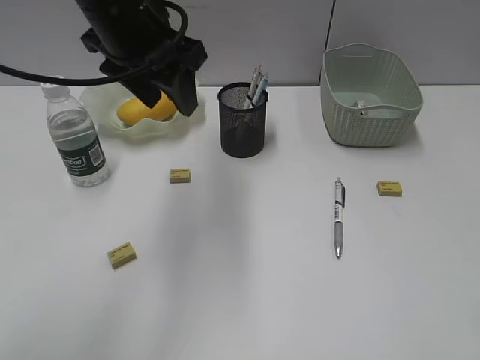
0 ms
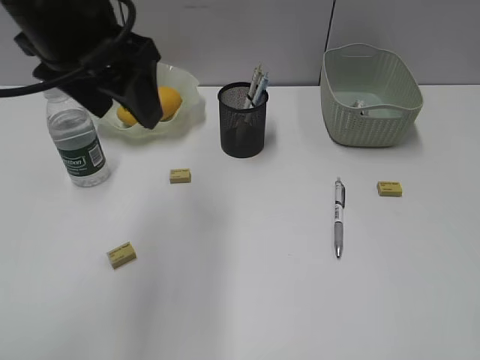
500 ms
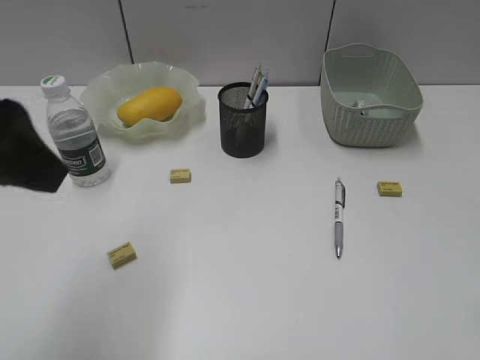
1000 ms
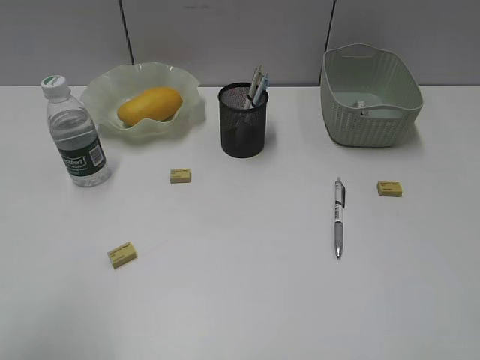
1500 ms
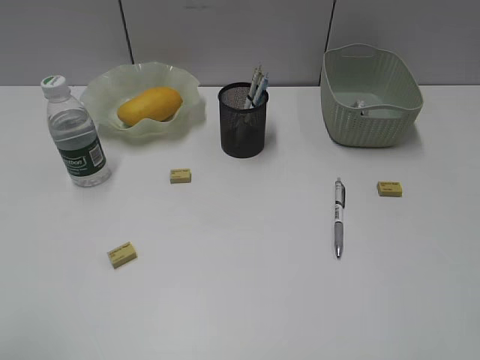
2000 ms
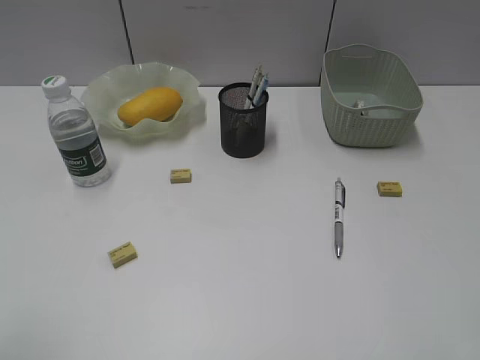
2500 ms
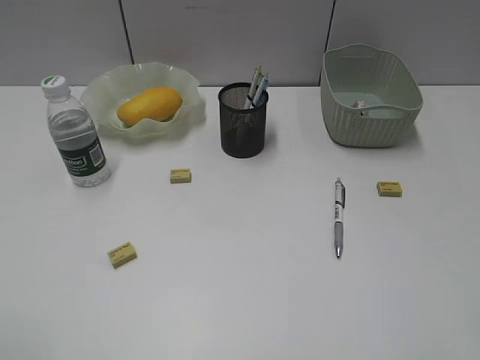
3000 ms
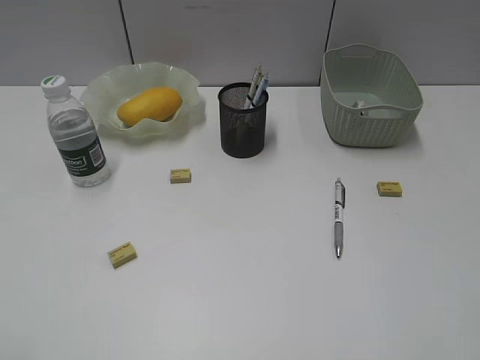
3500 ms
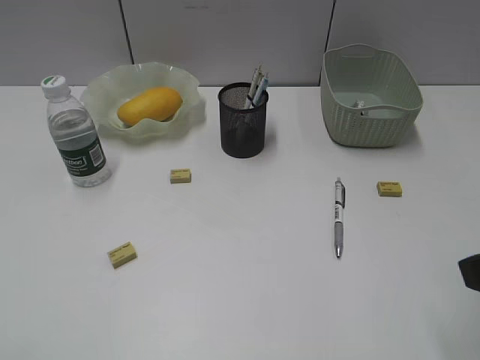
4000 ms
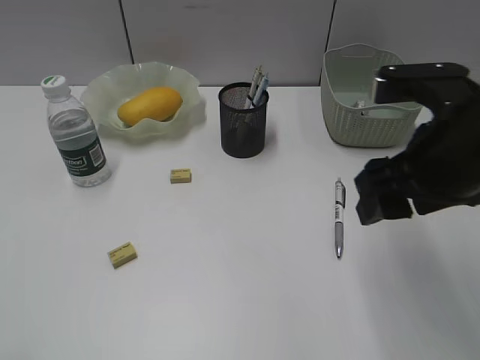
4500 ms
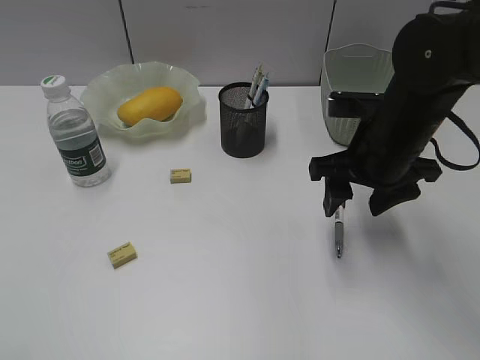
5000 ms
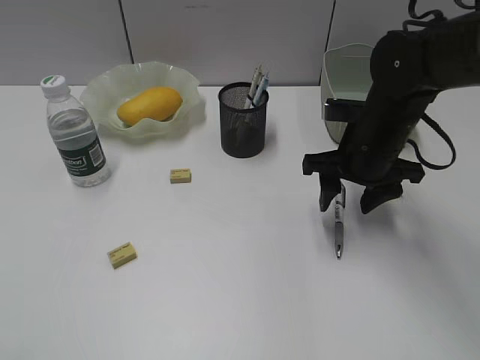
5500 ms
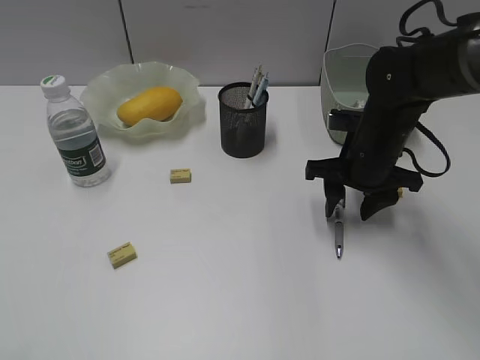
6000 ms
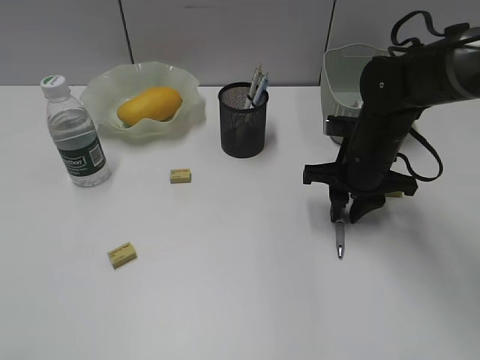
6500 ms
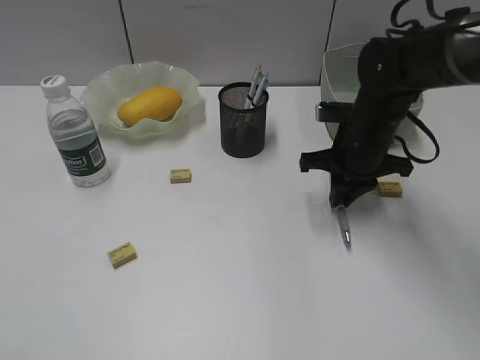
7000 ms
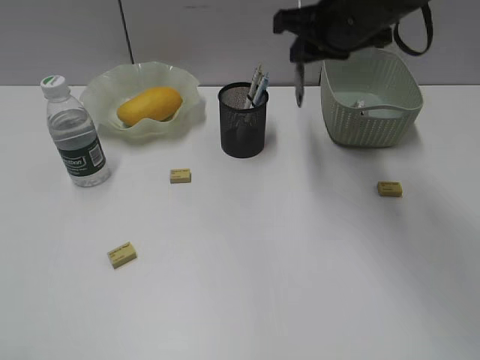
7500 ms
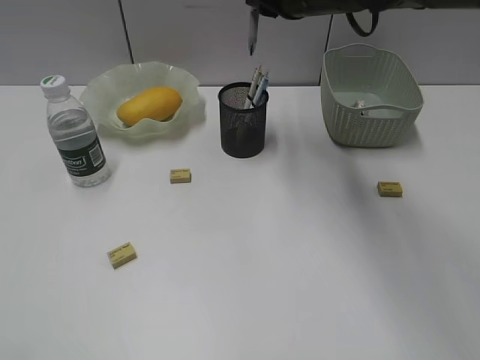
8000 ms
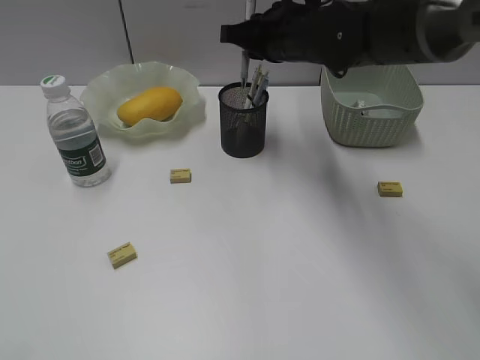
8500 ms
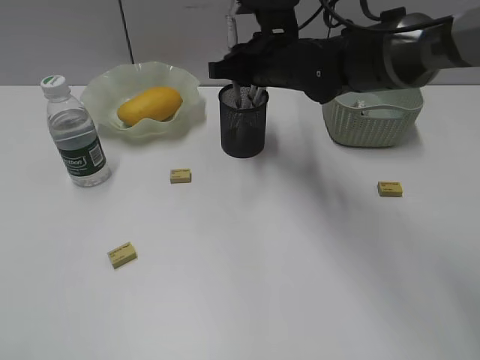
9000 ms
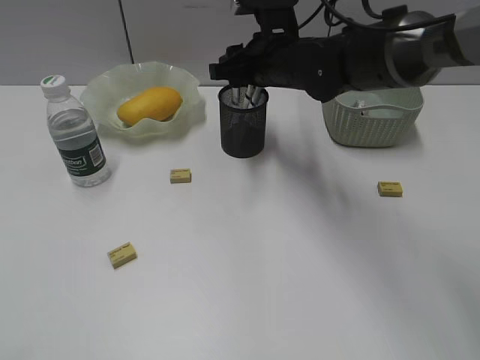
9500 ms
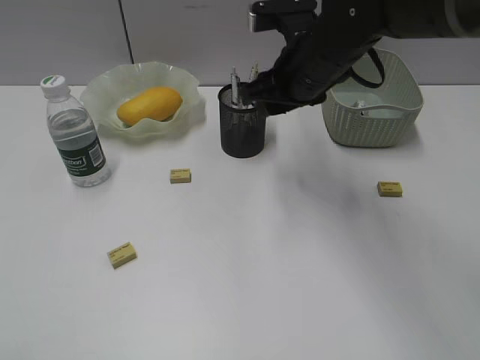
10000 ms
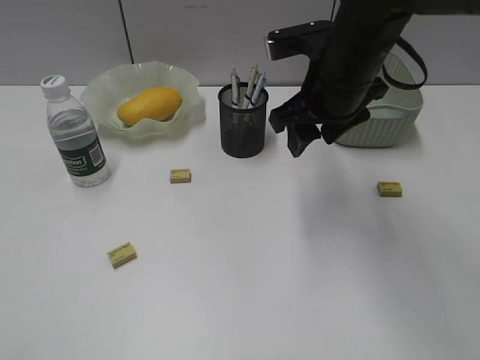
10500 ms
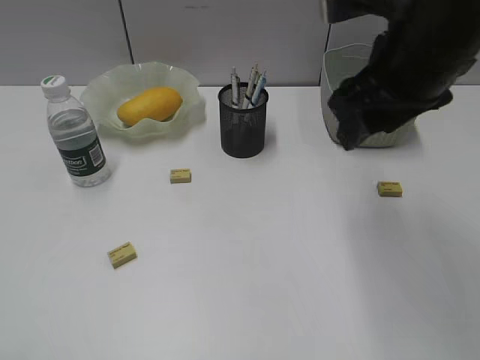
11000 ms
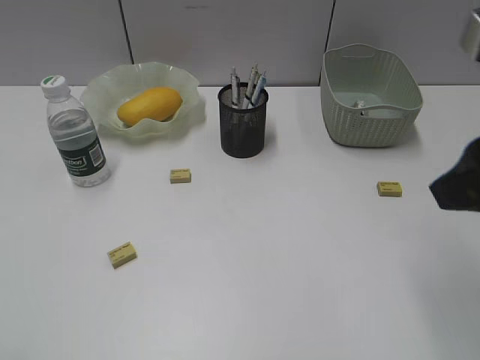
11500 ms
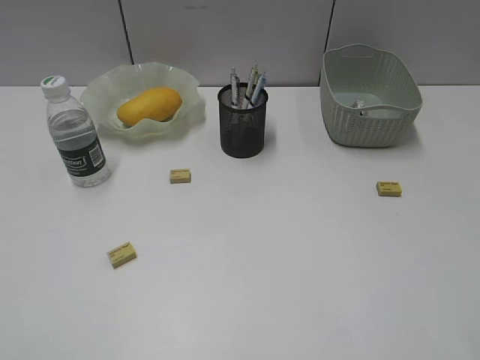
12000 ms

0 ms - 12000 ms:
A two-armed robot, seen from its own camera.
Step, 0 ms - 6500 ms: Grasp the gray pen with right gripper.
Step, 7000 ms - 9000 ms: Place the gray pen in pen holder with right gripper.
0 ms - 2000 ms: The left gripper moves backward and to the left, about 35 cm.
4000 ms - 6000 ms: The right gripper goes roughly 30 cm forward and downward.
6000 ms - 8000 ms: The right gripper heads upward and to the left, covering some 20 cm, and closes up.
8000 ms - 10000 ms: The right gripper travels downward by roughly 5 cm, and opens up.
10000 ms - 12000 ms: The right gripper moves backward and to the right, about 35 cm.

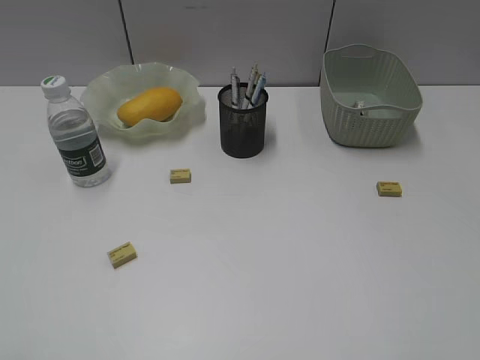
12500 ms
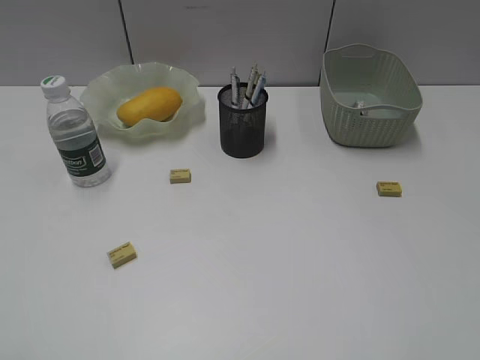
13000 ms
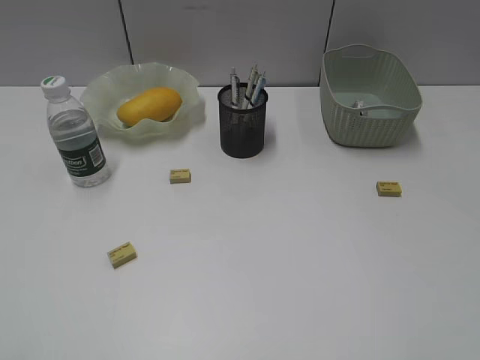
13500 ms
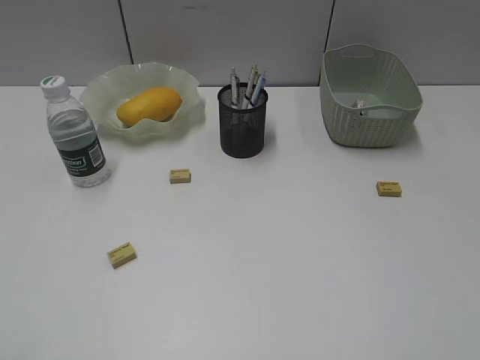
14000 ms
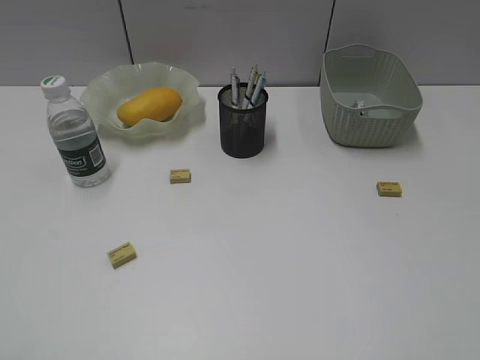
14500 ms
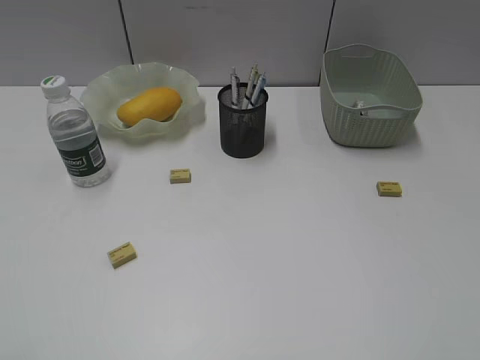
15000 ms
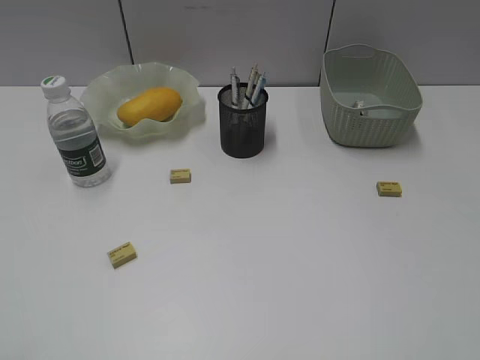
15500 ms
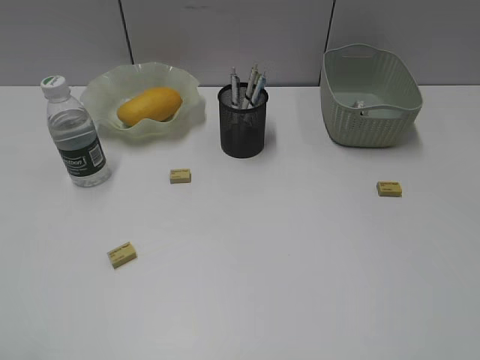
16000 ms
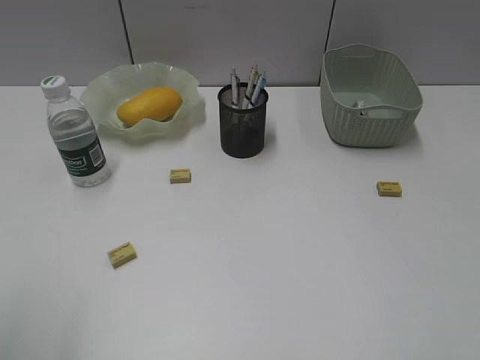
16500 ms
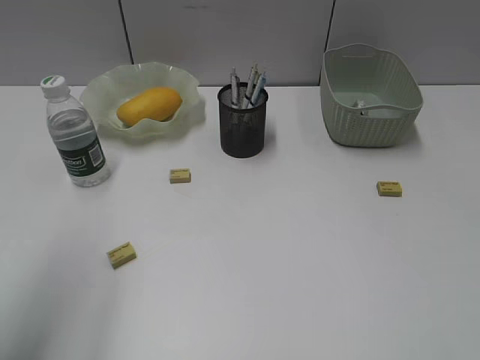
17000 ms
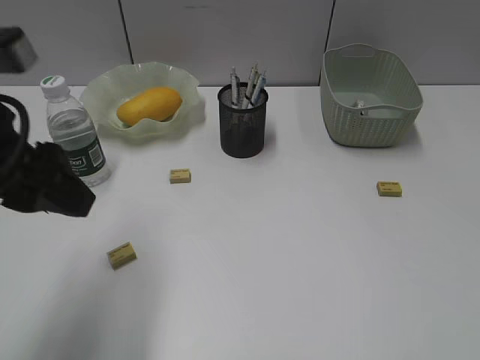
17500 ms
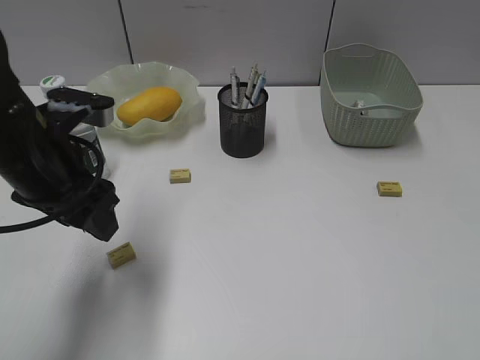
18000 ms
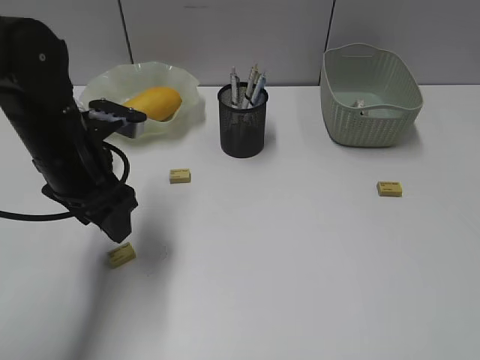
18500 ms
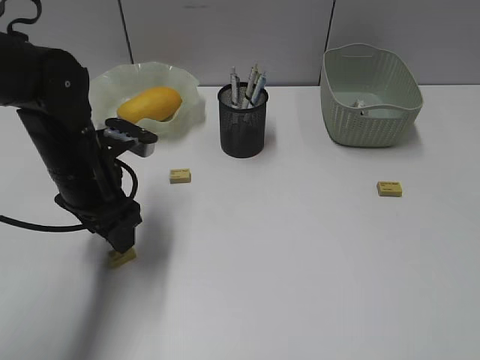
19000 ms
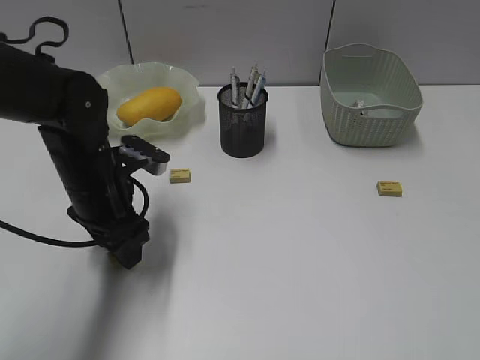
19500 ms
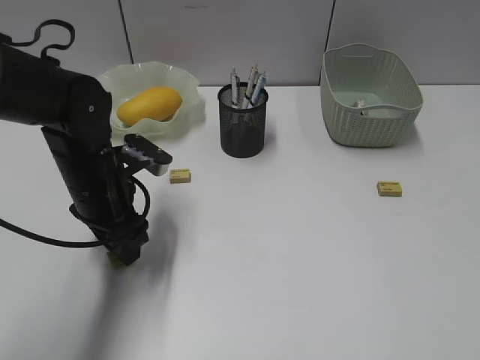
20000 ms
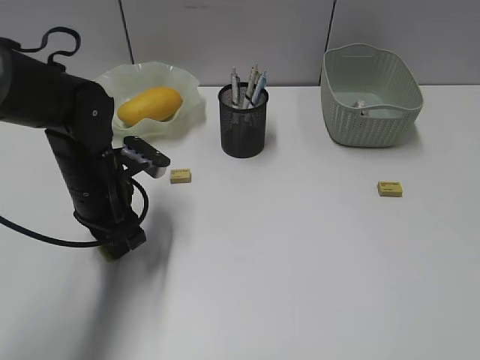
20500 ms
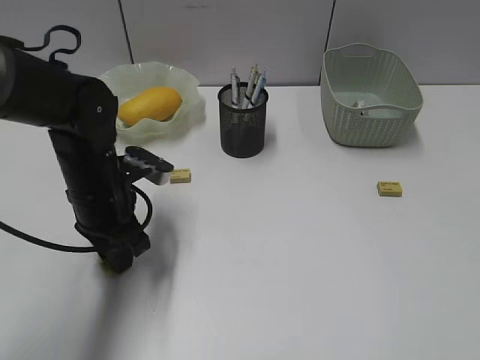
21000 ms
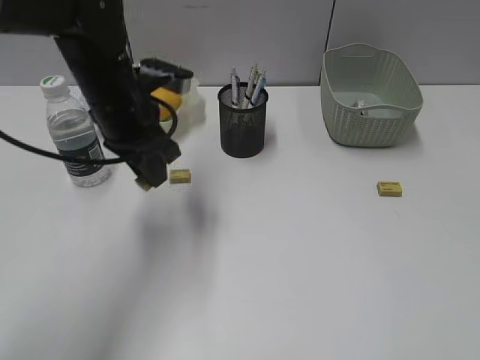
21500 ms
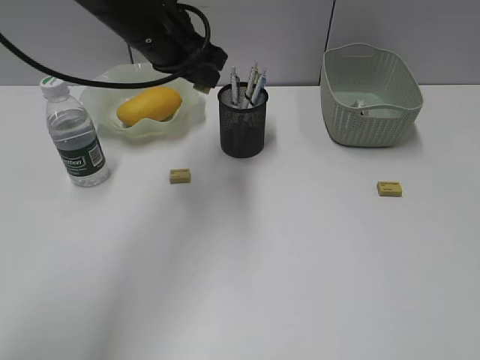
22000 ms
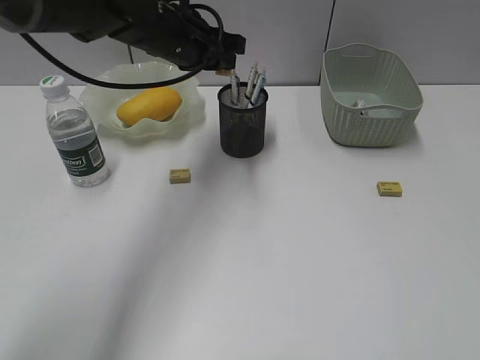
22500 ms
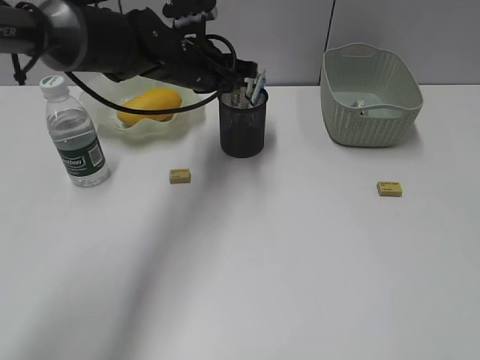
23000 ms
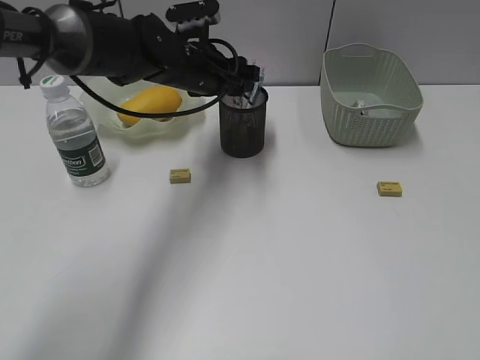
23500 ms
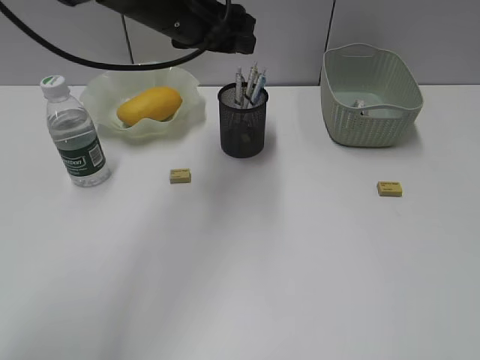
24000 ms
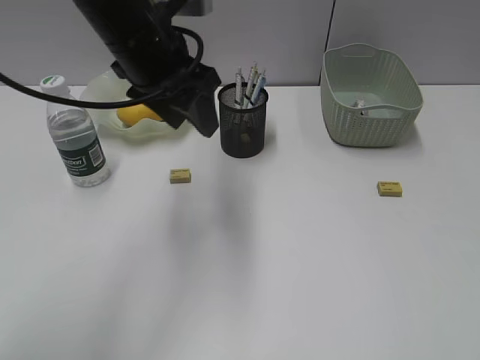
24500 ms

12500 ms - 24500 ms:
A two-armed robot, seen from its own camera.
Step, 12500 ms - 20500 ms: Grasp the eraser with left gripper.
Step, 21000 ms - 23500 ms: Place the eraser in pen holder with left gripper.
16500 ms - 18500 ms: The left gripper shifts some 30 cm forward, downward and to the right.
18500 ms - 20500 ms: The left gripper shifts roughly 5 cm downward, and closes up.
20500 ms - 22500 ms: The left gripper heads upward, forward and to the right, covering about 20 cm.
22500 ms - 24500 ms: The left gripper moves backward, about 10 cm, and opens up.

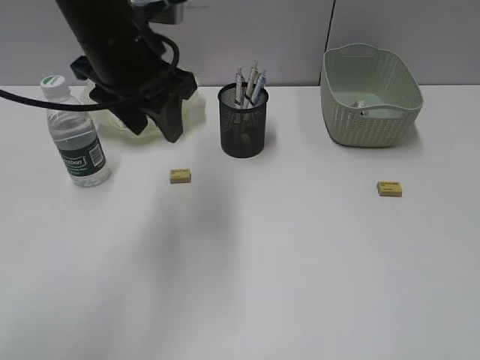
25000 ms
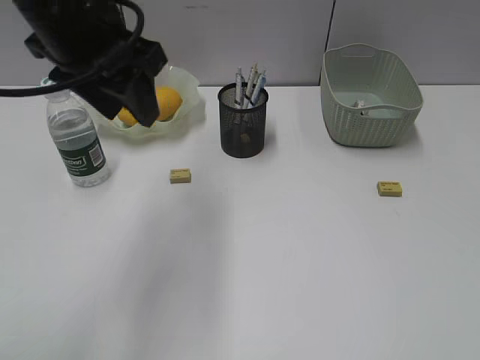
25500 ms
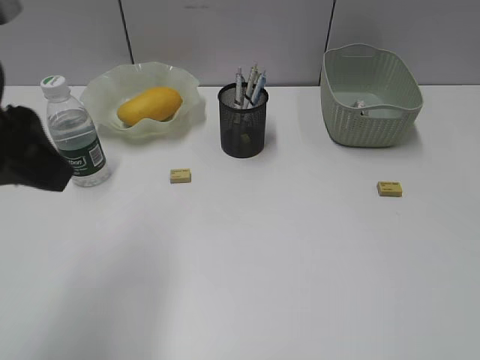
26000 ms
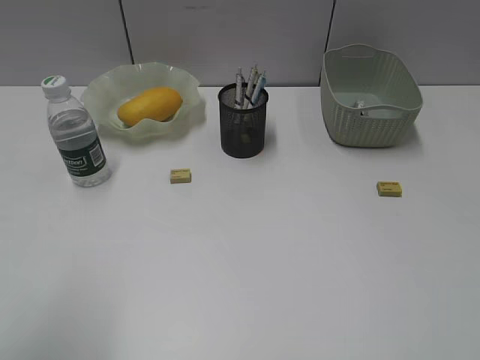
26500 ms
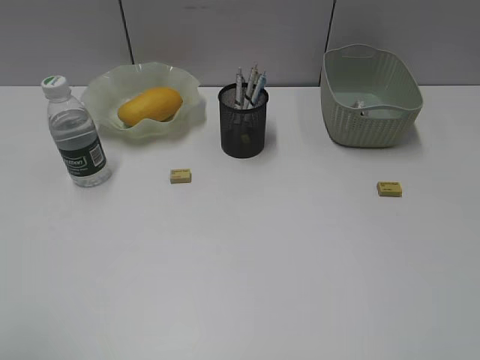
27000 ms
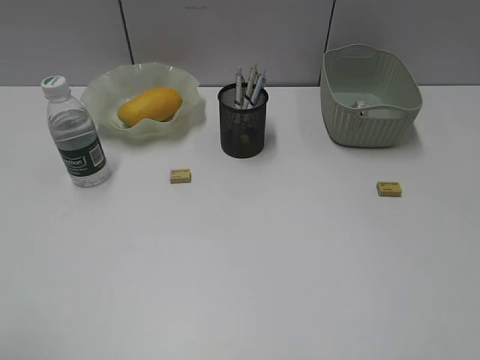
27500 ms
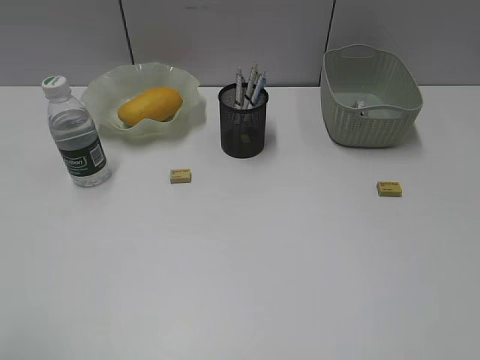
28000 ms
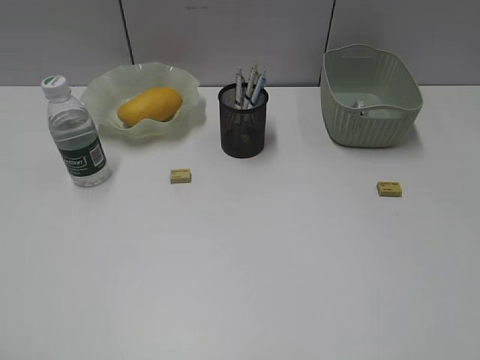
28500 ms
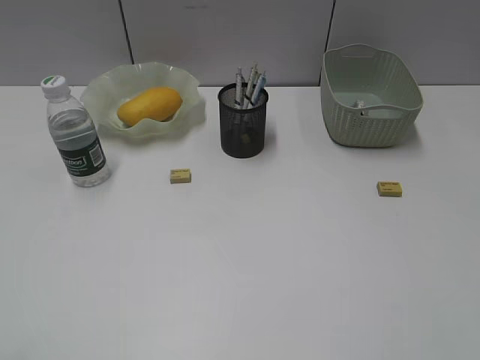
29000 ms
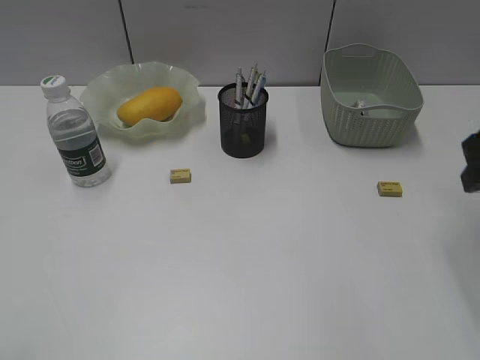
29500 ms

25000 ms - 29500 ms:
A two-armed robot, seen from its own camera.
25000 ms - 27000 ms: The left gripper shifts about 35 cm backward and to the left.
27000 ms - 29500 ms: The right gripper is displaced forward by about 25 cm.
